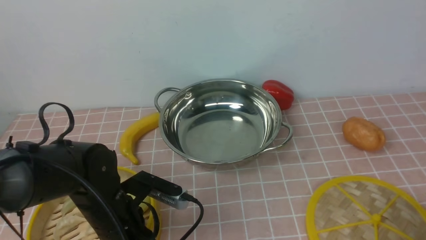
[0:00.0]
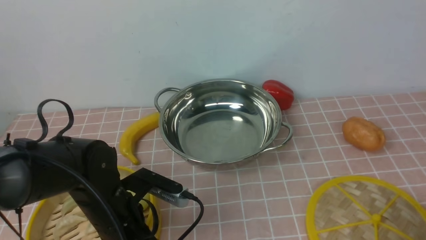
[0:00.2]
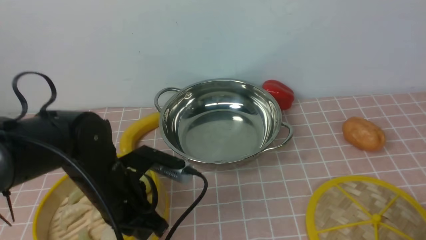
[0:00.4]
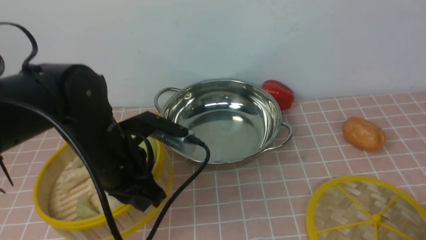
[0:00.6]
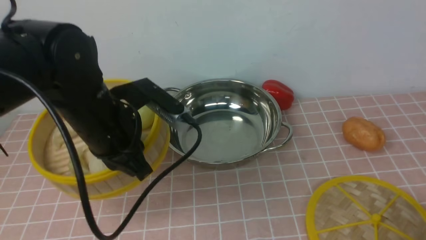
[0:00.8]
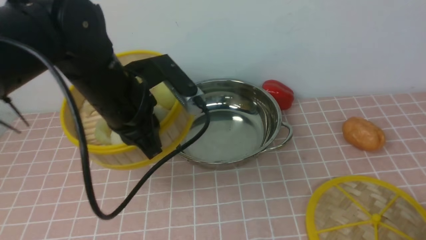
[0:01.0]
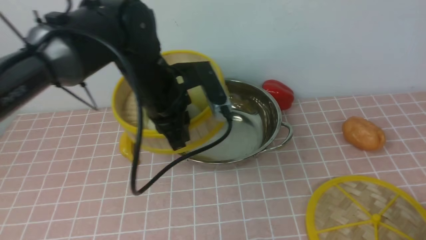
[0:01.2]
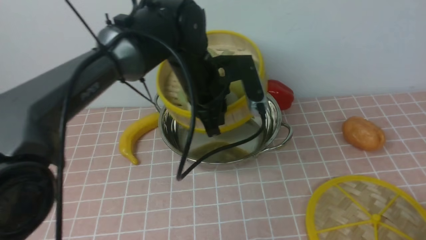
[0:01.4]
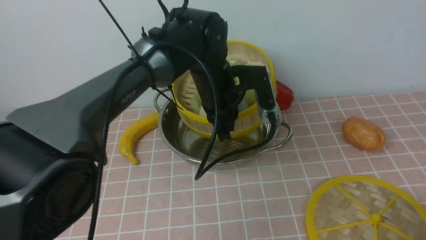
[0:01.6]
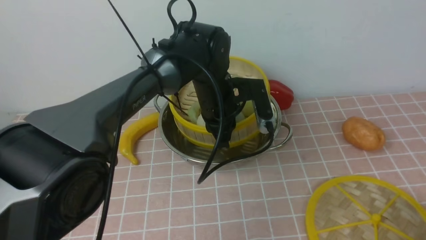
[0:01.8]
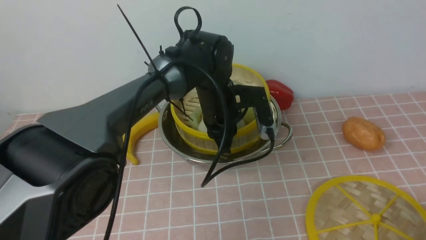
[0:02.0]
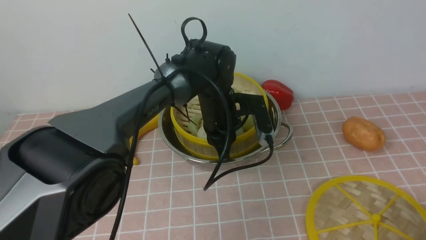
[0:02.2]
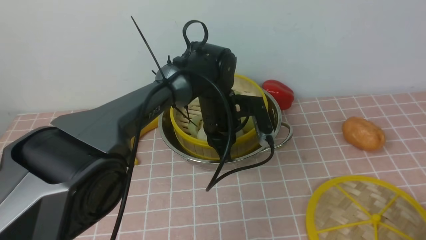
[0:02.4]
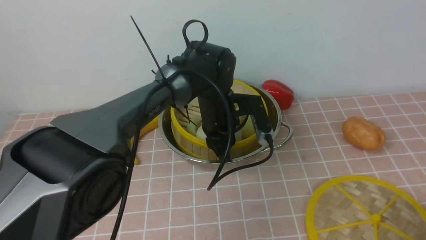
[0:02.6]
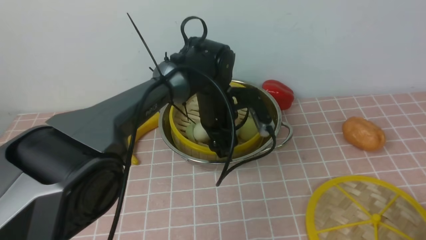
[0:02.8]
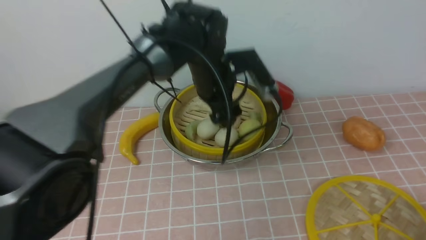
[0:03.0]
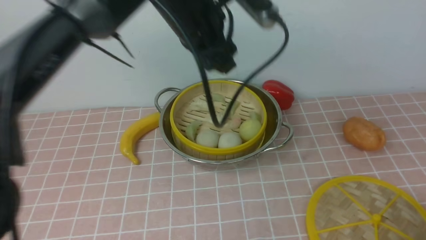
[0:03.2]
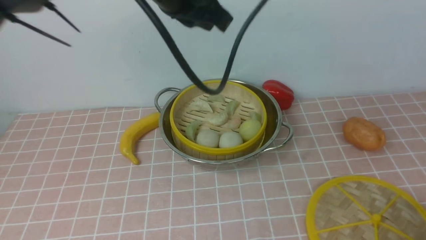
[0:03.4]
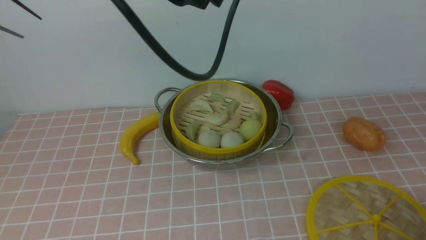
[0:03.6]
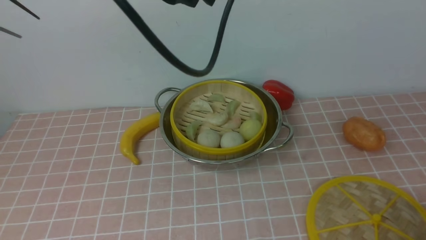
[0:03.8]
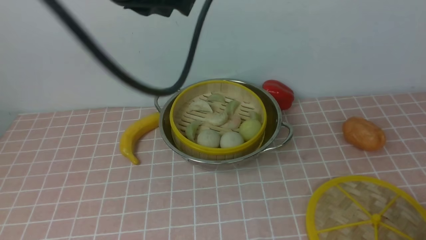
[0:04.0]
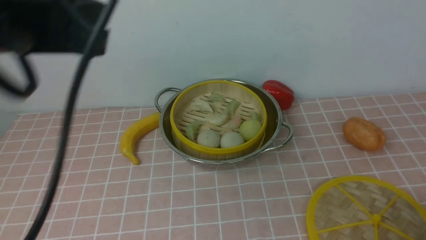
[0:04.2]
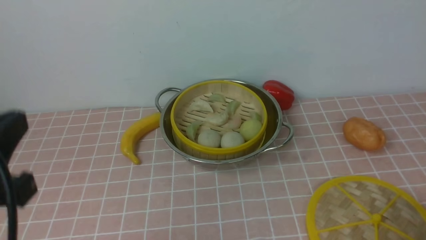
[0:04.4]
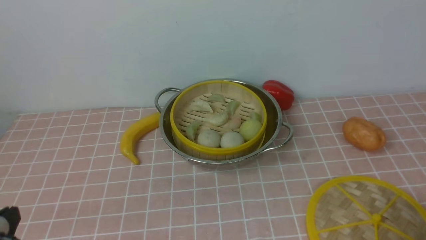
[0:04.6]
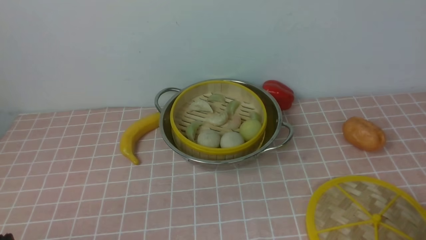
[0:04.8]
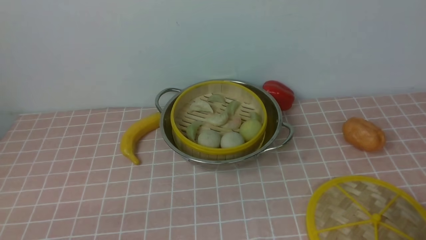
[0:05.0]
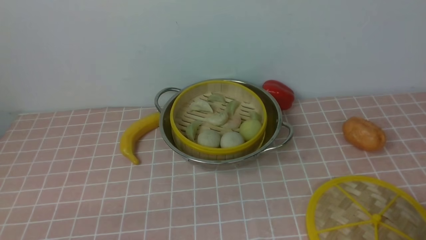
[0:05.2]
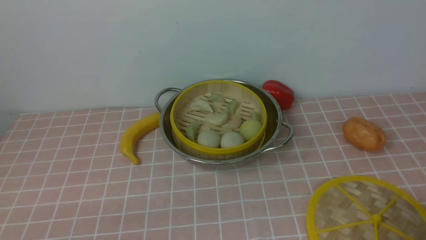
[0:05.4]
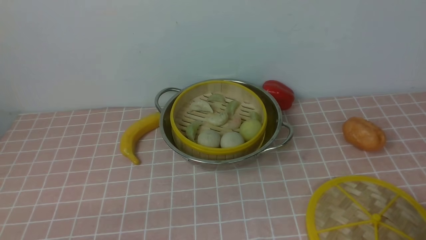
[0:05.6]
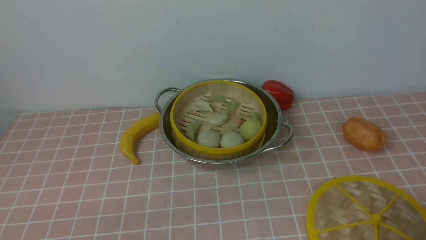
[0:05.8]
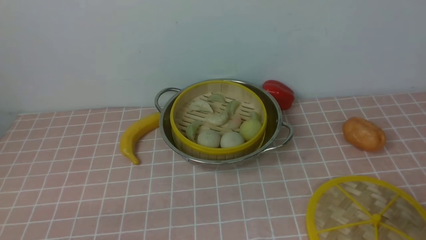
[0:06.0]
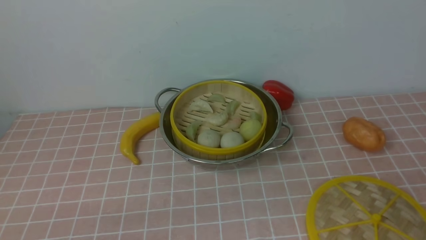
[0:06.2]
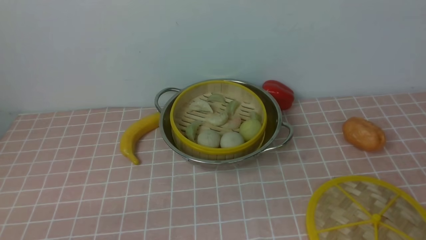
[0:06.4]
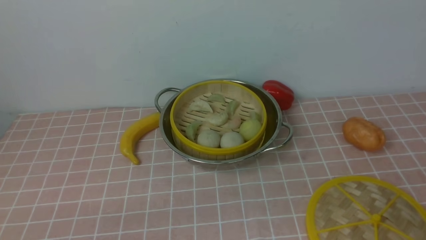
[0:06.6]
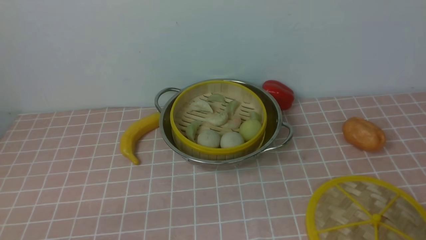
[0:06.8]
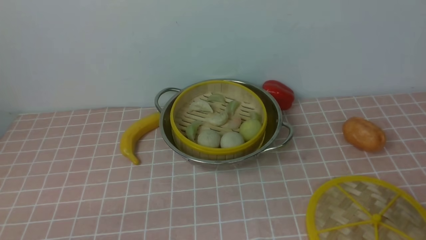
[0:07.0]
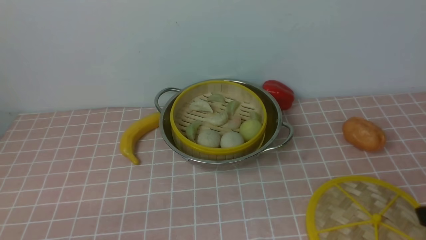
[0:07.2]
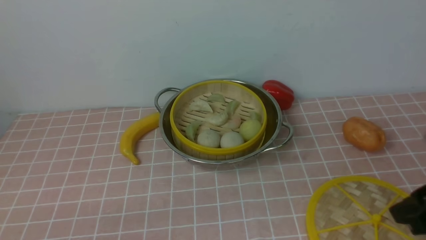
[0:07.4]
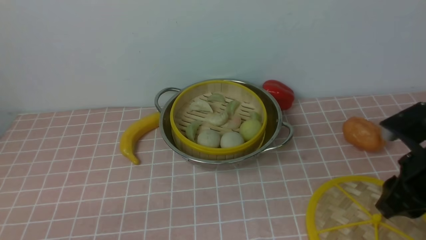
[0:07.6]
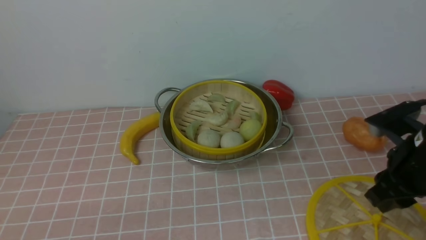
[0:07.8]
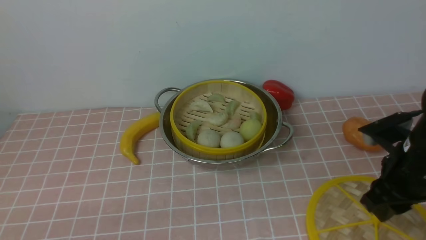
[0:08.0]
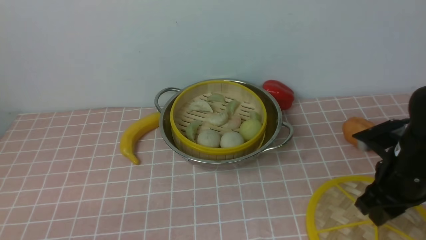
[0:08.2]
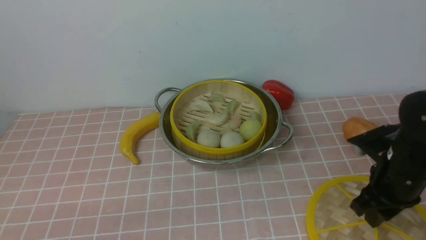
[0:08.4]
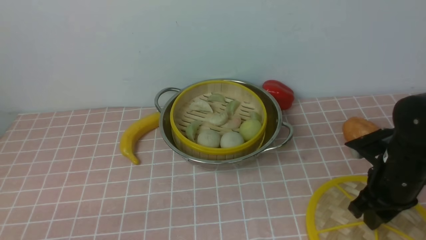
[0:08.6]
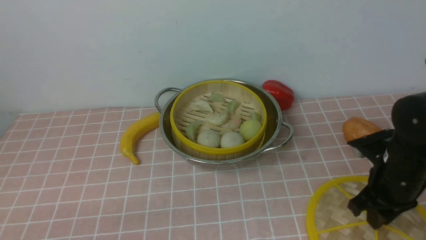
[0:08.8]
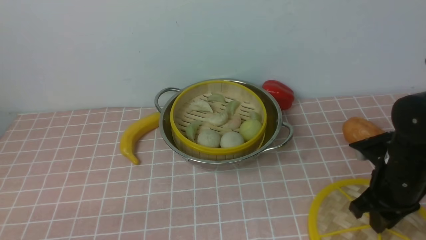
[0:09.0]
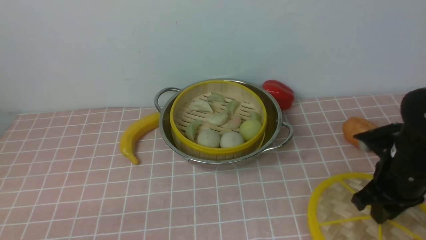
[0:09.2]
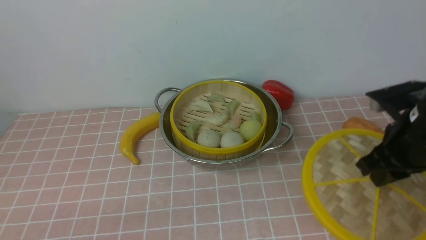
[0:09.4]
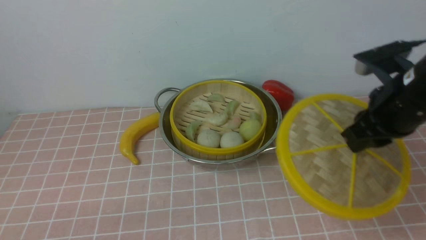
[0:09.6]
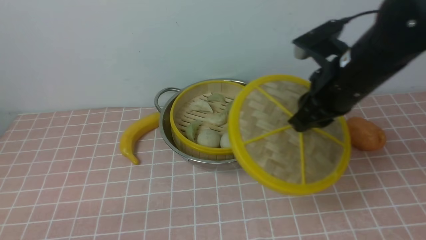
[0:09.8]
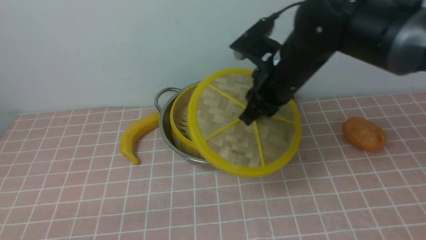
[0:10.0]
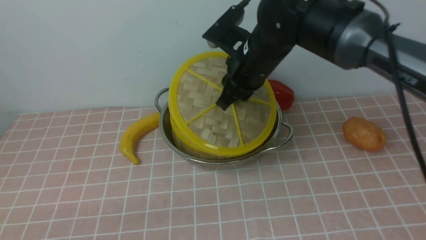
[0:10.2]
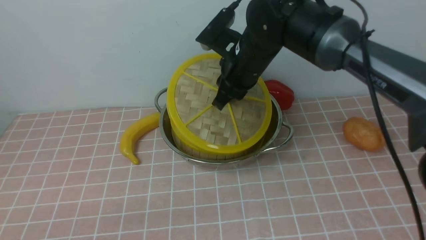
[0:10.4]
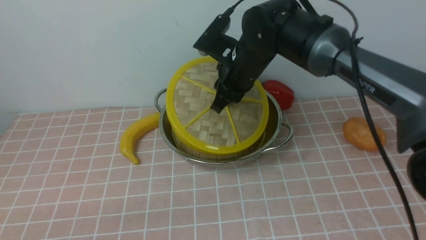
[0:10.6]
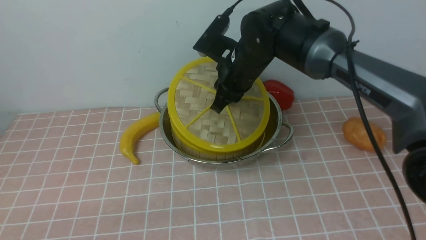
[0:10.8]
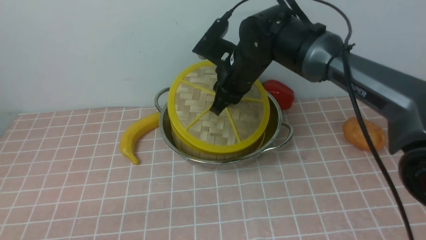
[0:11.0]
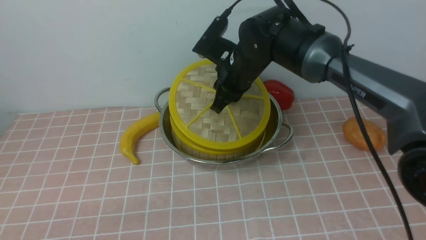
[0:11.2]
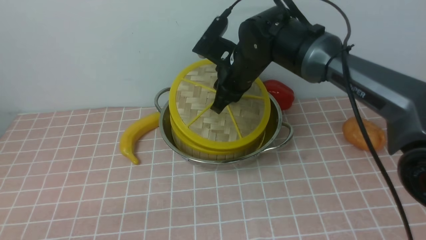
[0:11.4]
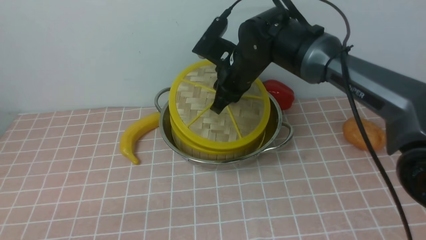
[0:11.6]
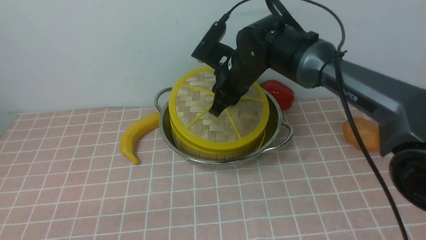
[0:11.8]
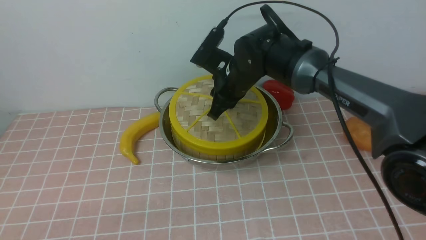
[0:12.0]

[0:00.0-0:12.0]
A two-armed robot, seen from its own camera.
Task of the whole recording: place the steamer in the pot on the pink tablecloth, and put the lid on the steamer.
Step, 0:00.6 to 0:02.8: use the left arm to put the steamer into the iron steamer pot in the middle.
Step, 0:03.0 to 0:09.2: use the right arm to lift the lid of the steamer.
0:00.0 to 0:01.6: The left gripper travels forward, to the right and upward by some 25 cm, and closes its fingers.
0:01.6 to 0:03.0: The left gripper opens.
0:03.0 to 0:04.4: The left gripper moves backward and to the left, approximately 35 cm, and closes its fingers.
0:04.4 to 0:06.0: The left gripper goes about 15 cm downward.
0:06.0 to 0:07.6: The right gripper goes roughly 15 cm forward.
0:07.6 to 0:09.0: The right gripper moves downward and forward, about 10 cm.
0:09.0 to 0:10.4: The right gripper travels to the left, forward and upward by roughly 25 cm.
0:10.4 to 0:12.0: The right gripper shifts by approximately 5 cm.

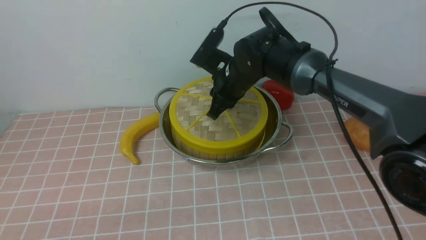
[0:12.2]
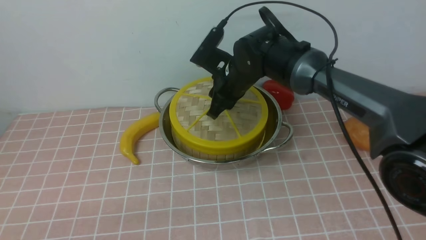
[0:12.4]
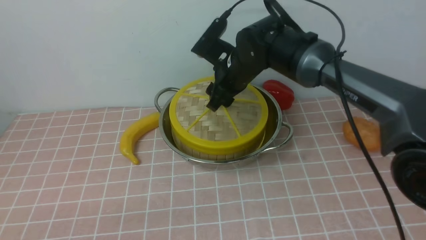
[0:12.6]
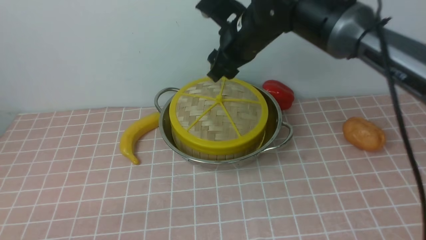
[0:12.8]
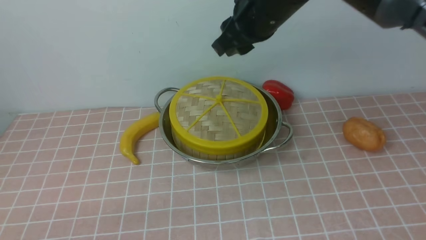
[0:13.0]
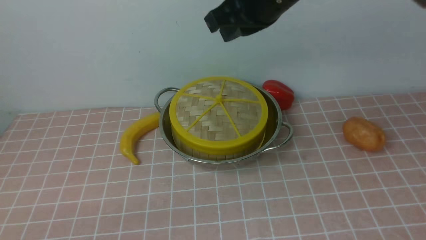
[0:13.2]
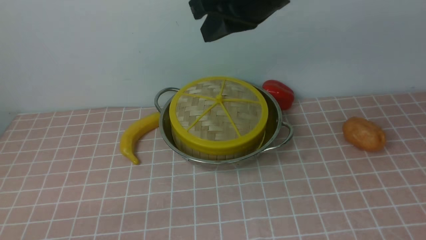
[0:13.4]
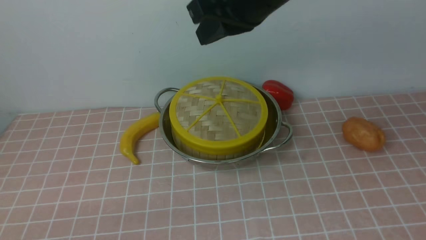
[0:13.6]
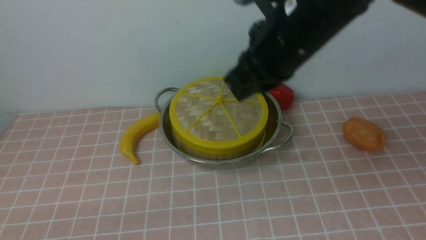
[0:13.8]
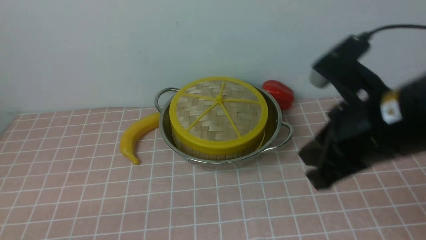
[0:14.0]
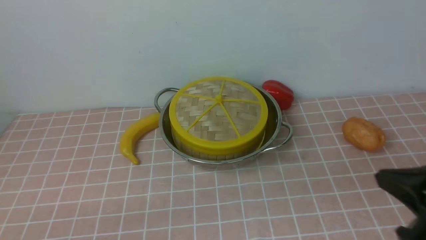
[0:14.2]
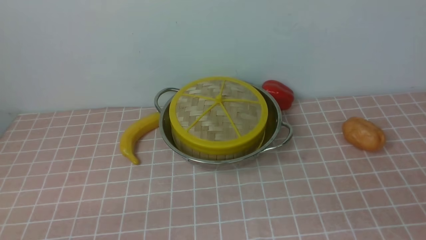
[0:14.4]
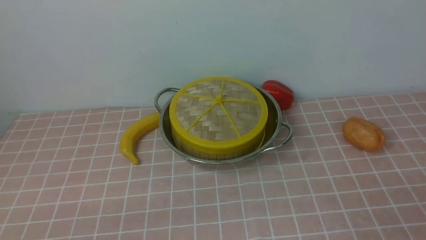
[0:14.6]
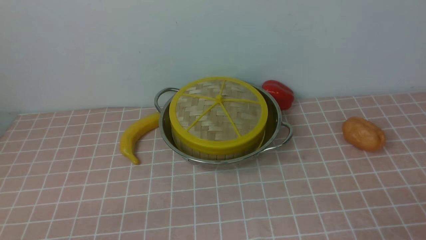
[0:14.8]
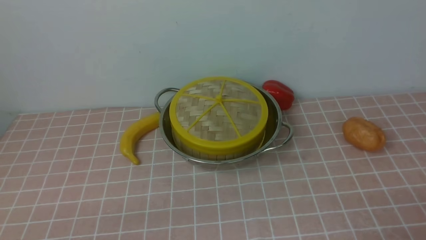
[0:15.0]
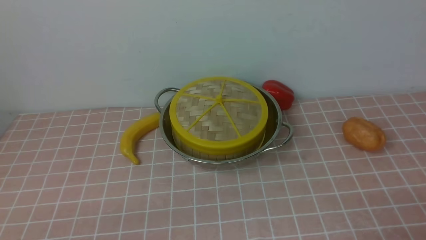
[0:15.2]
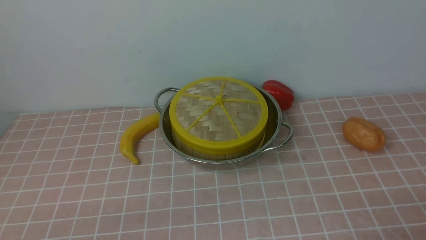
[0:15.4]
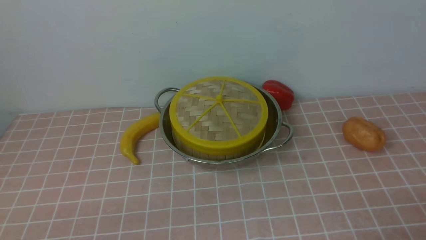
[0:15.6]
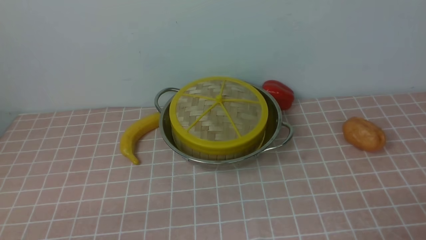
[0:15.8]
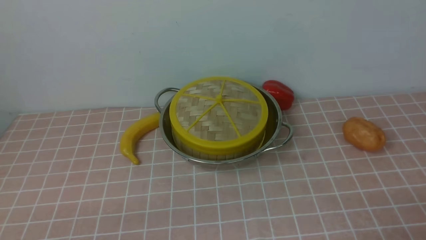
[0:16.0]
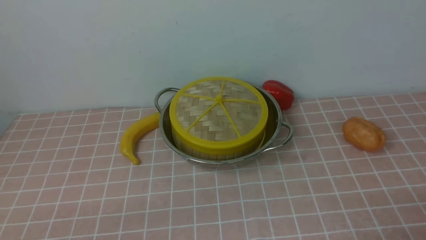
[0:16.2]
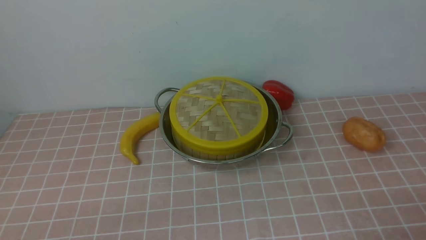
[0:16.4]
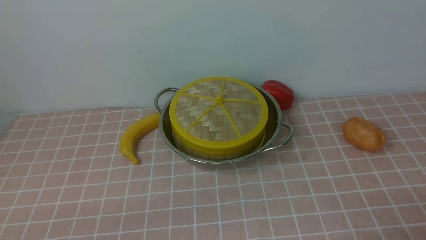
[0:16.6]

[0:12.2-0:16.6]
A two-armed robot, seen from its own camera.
Task of the whole recording: place the steamer in the pot on the pink tablecloth, and put the lid on the steamer.
0:12.2 to 0:13.6: The right gripper travels upward and backward by about 20 cm, and closes.
0:13.6 to 0:15.2: The right gripper heads backward, to the right and downward, covering about 40 cm.
